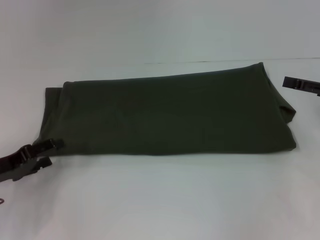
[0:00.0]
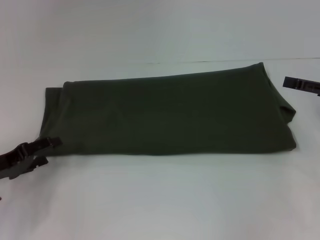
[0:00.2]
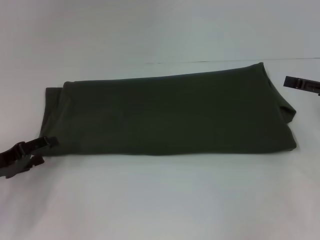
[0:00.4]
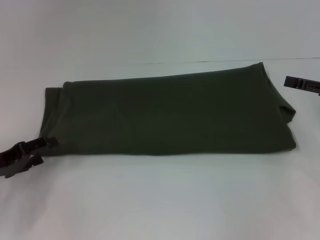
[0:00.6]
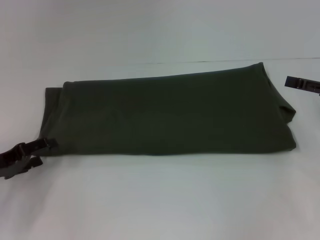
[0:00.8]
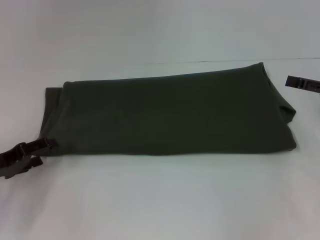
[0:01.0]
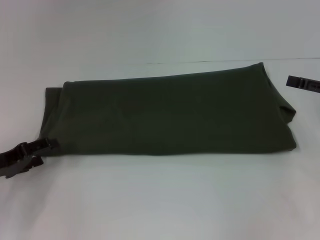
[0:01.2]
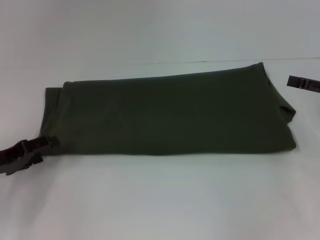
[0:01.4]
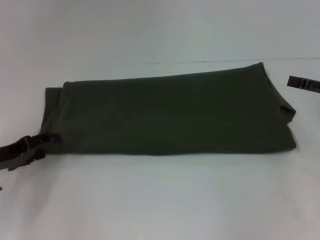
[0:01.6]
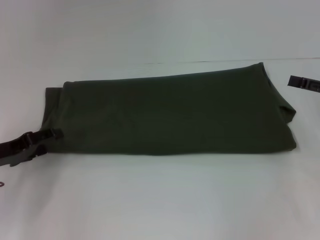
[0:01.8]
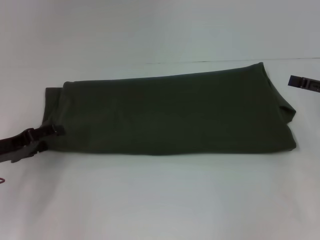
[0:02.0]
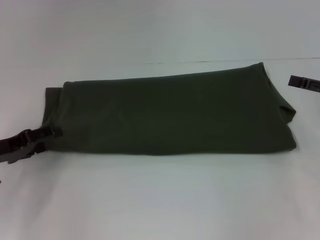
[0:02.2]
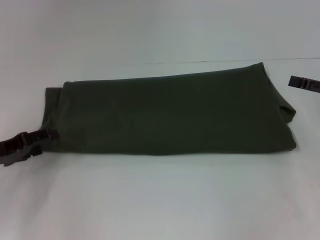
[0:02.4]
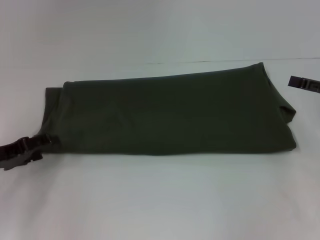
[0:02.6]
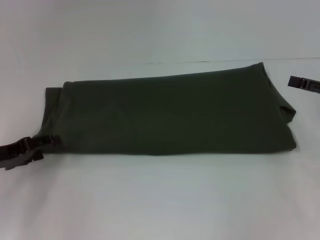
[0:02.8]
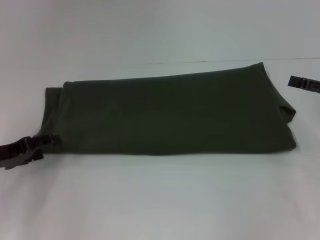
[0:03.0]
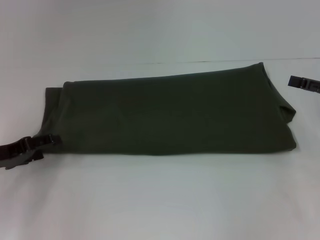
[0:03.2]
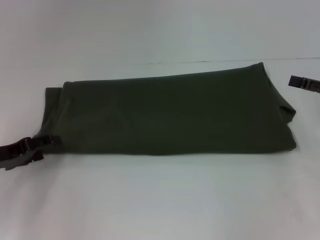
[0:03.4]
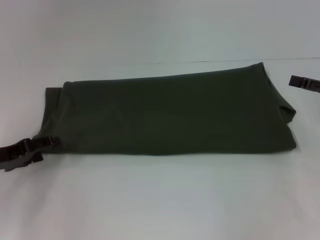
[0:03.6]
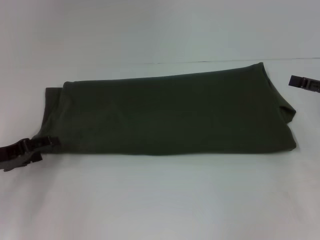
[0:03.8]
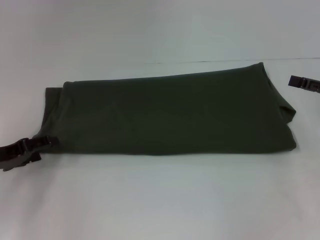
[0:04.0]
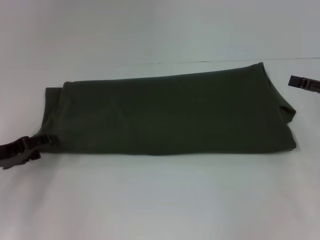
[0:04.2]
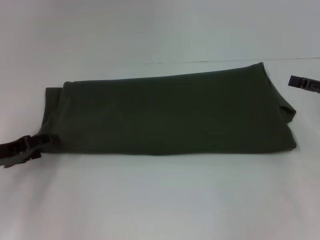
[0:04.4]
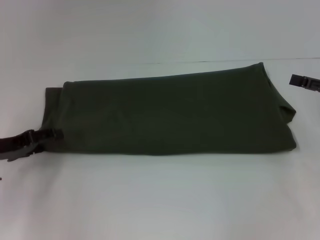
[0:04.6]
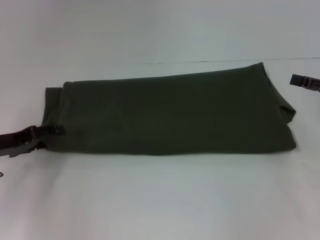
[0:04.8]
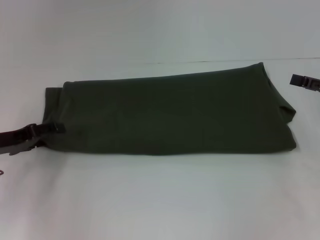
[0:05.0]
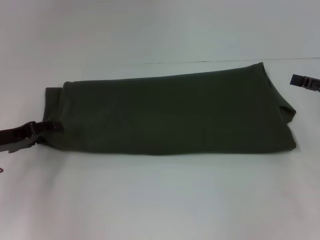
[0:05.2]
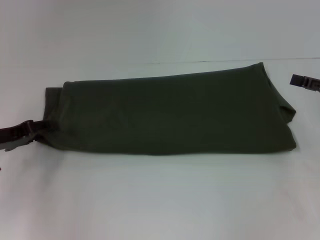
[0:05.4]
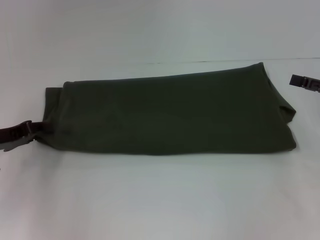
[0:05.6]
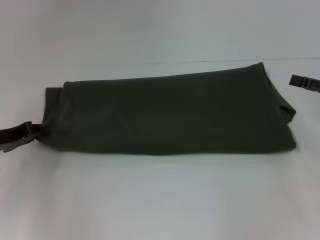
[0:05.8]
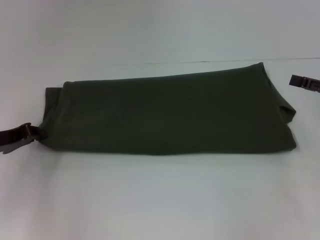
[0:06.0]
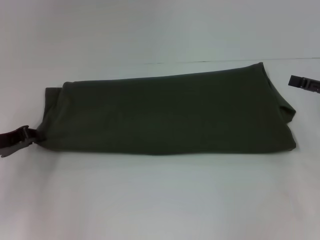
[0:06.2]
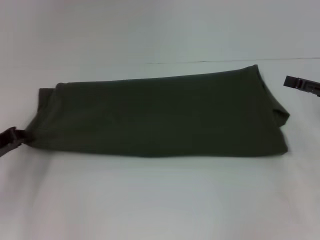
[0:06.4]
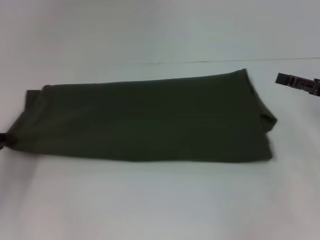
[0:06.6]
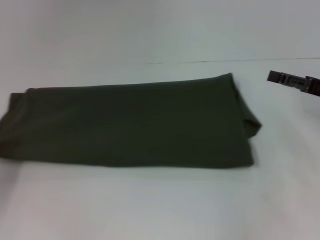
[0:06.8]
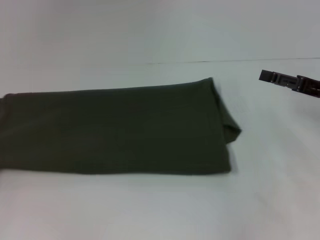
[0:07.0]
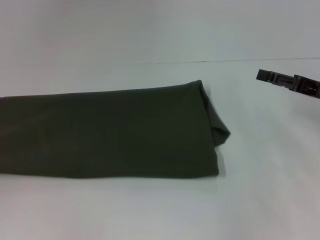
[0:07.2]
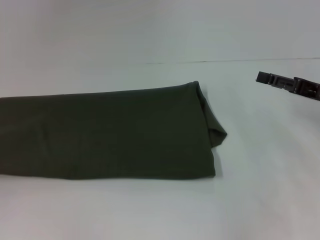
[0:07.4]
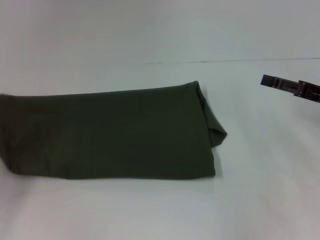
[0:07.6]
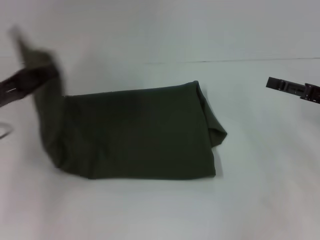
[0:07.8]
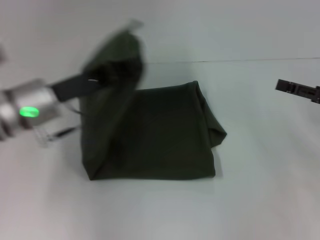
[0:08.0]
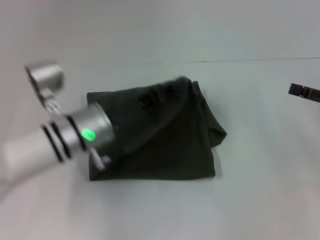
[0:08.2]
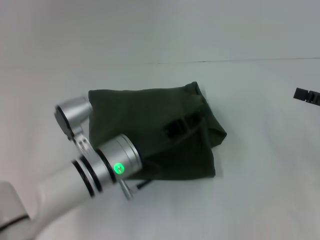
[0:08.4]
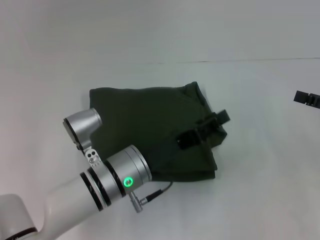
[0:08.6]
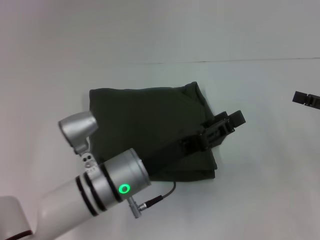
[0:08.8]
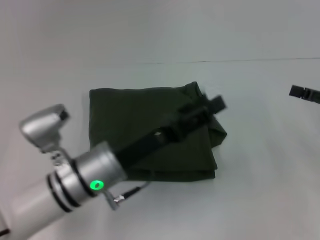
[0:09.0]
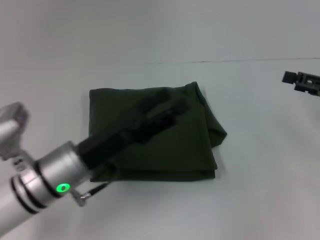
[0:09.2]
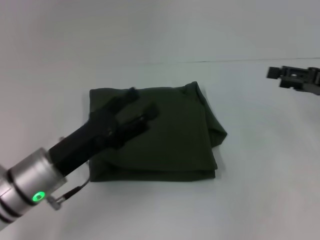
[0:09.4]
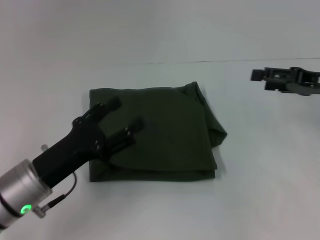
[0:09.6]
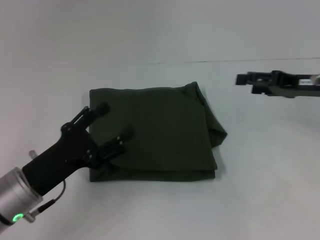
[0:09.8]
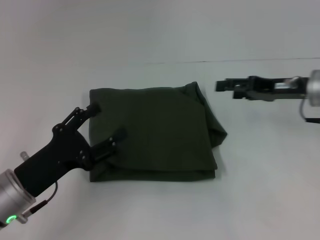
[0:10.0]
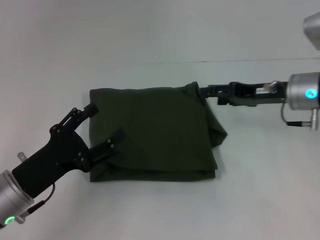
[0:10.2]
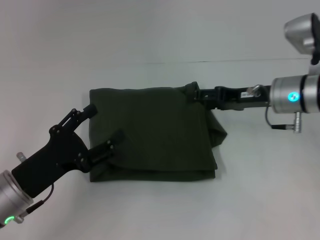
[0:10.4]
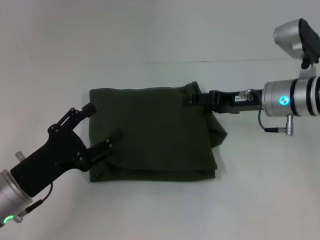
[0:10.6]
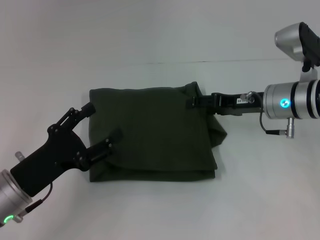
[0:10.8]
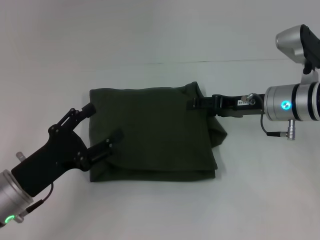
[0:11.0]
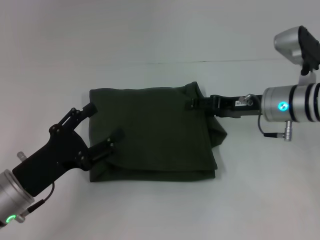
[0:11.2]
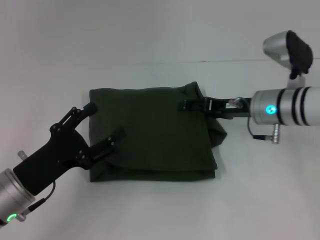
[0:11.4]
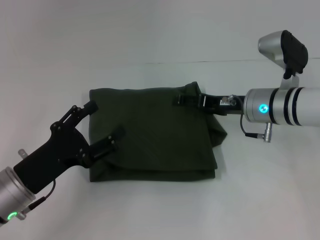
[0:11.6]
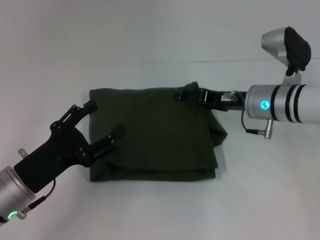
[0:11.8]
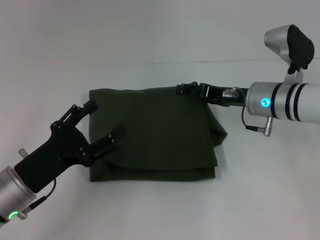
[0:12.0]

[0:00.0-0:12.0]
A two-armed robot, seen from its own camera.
Step, 0:00.0 to 0:08.6: Fold the clothes with your left hand.
0:00.0 to 0:01.6: The grippers move only a little.
0:03.0 to 0:04.4: The two grippers keep their place.
0:04.4 to 0:06.0: The left gripper closes up.
0:06.0 to 0:07.6: The left gripper shifts some 10 cm to the left and backward.
0:07.6 to 0:09.0: The left gripper heads to the right, covering approximately 25 cm, and opens up.
0:09.0 to 0:10.4: The right gripper travels to the left and forward by approximately 15 cm; the left gripper goes approximately 10 cm to the left, and opens its fingers.
0:10.4 to 0:12.0: The grippers move only a little.

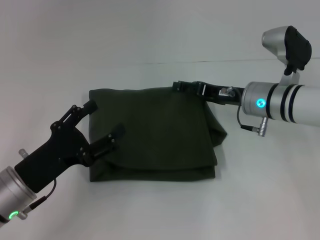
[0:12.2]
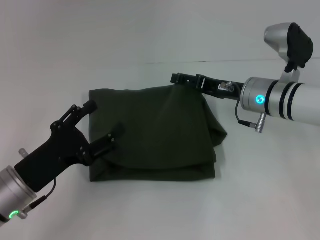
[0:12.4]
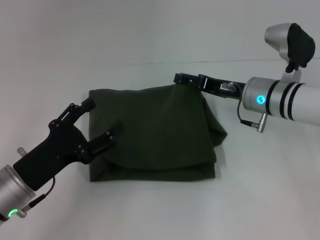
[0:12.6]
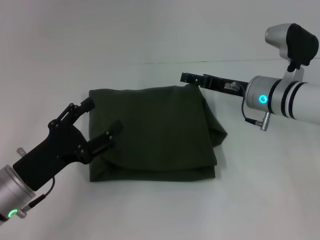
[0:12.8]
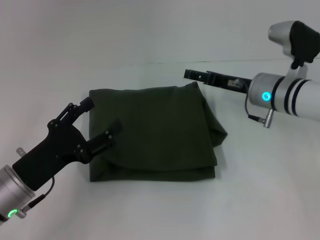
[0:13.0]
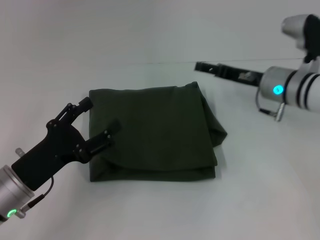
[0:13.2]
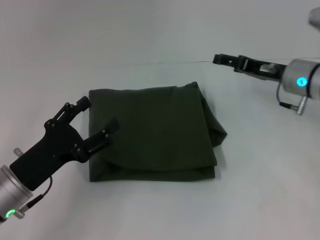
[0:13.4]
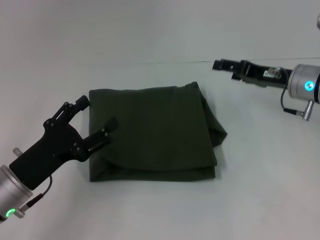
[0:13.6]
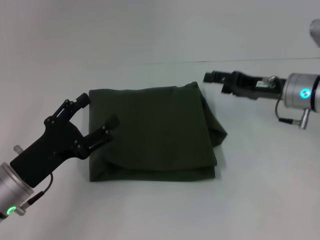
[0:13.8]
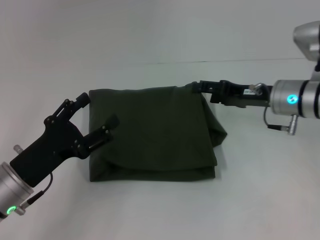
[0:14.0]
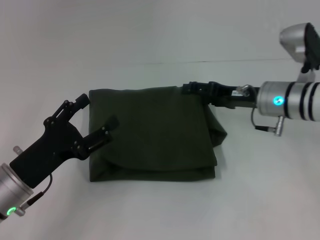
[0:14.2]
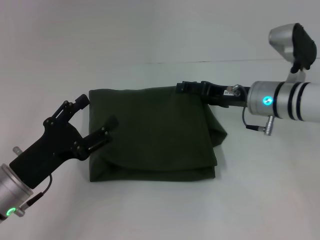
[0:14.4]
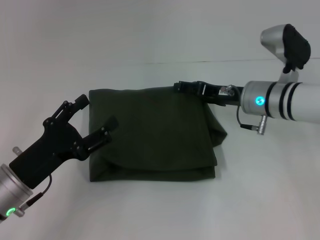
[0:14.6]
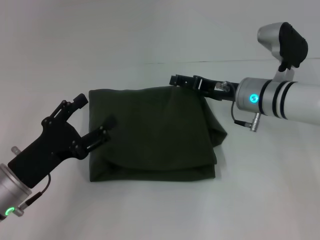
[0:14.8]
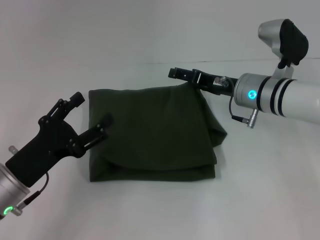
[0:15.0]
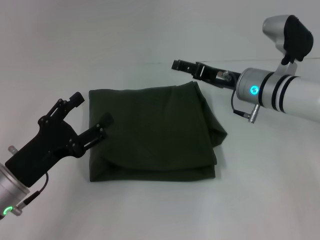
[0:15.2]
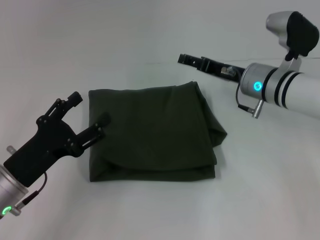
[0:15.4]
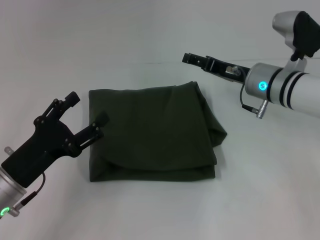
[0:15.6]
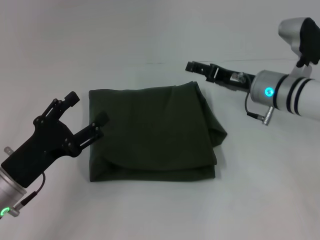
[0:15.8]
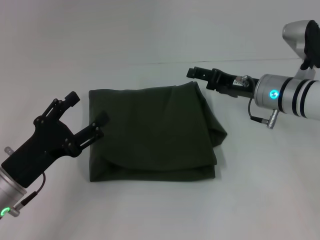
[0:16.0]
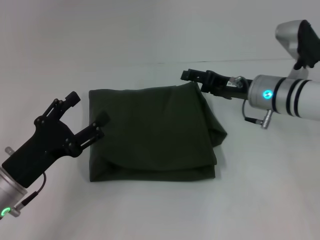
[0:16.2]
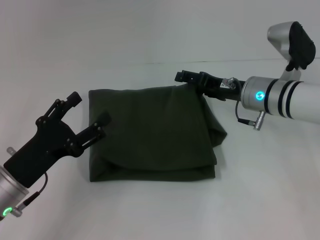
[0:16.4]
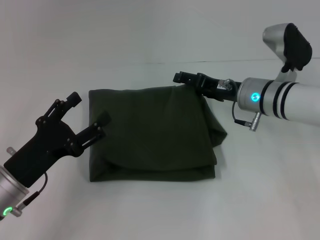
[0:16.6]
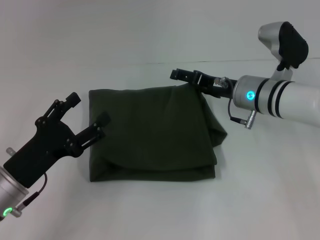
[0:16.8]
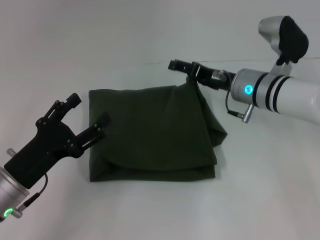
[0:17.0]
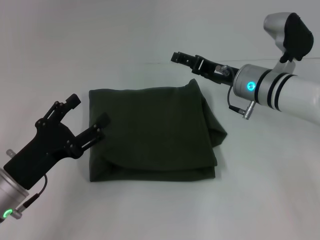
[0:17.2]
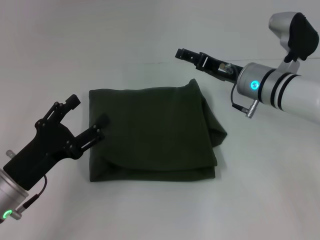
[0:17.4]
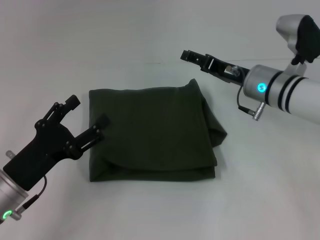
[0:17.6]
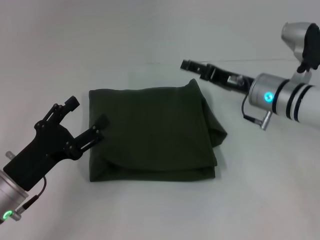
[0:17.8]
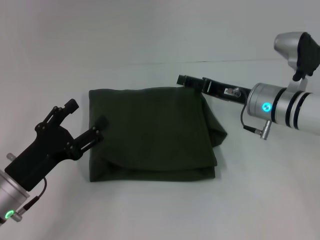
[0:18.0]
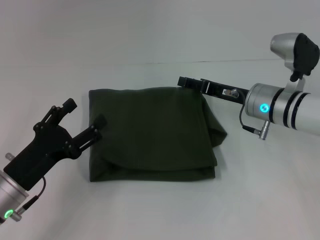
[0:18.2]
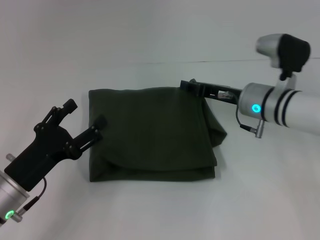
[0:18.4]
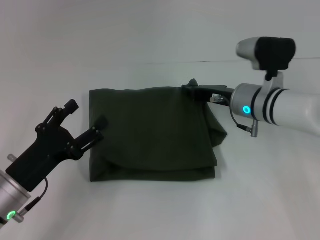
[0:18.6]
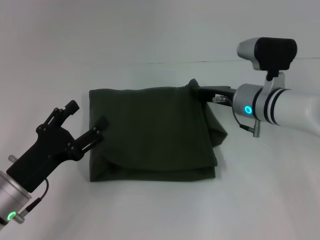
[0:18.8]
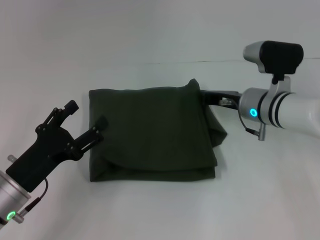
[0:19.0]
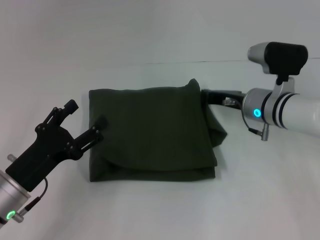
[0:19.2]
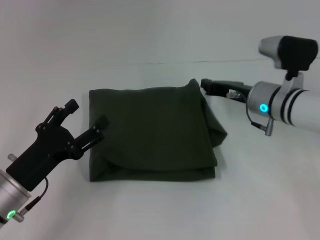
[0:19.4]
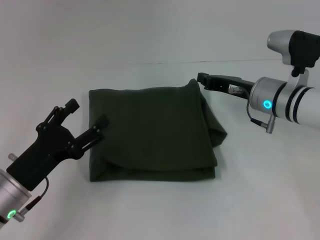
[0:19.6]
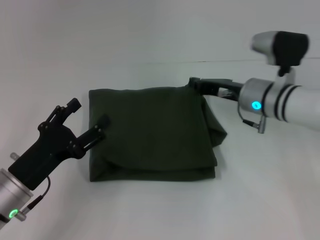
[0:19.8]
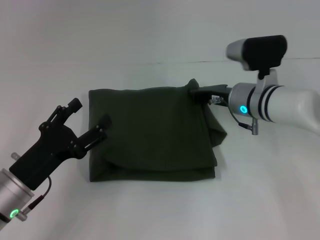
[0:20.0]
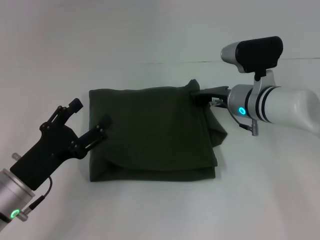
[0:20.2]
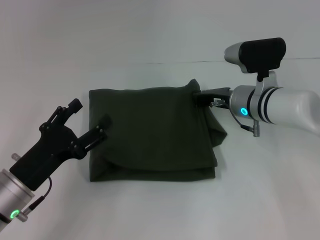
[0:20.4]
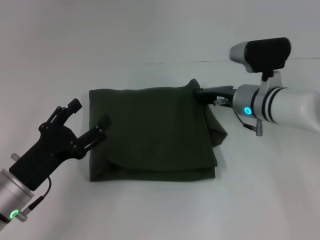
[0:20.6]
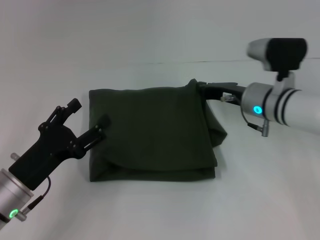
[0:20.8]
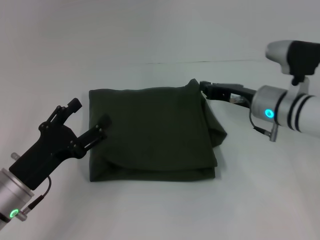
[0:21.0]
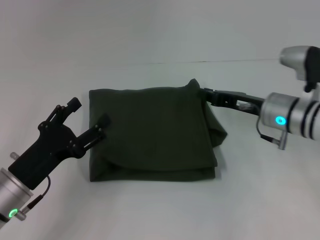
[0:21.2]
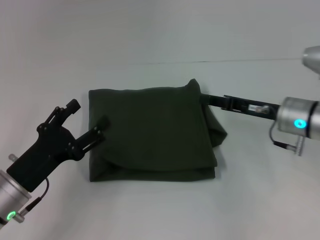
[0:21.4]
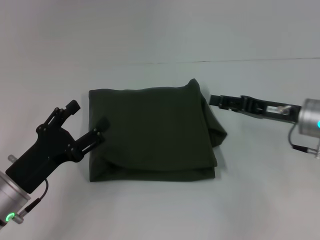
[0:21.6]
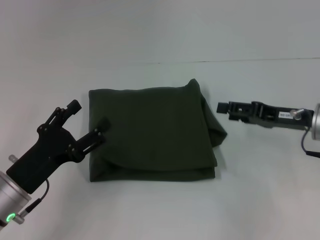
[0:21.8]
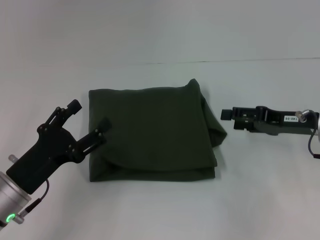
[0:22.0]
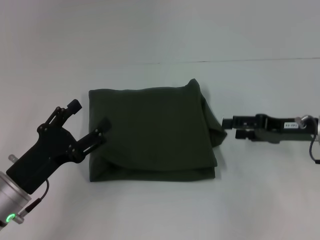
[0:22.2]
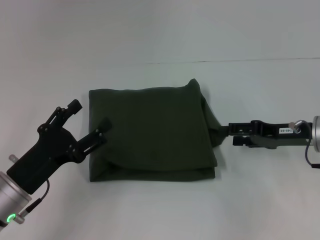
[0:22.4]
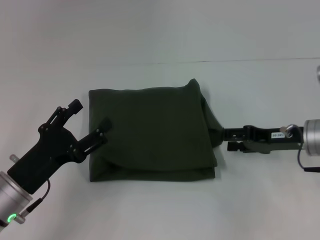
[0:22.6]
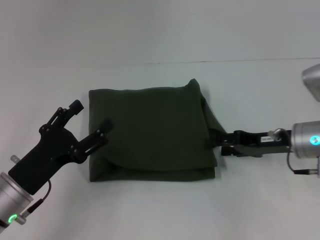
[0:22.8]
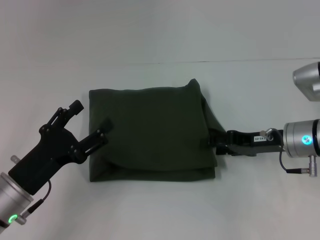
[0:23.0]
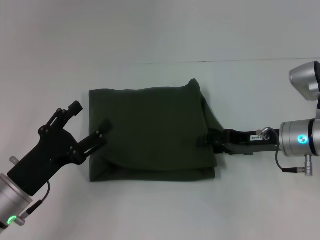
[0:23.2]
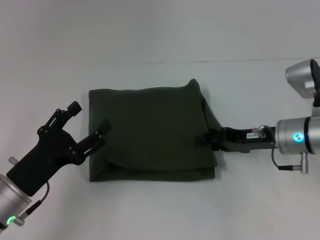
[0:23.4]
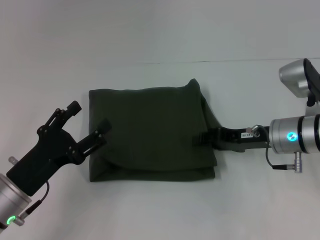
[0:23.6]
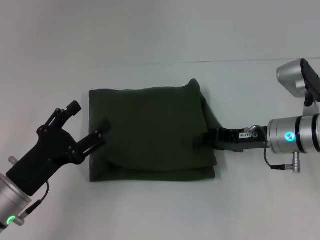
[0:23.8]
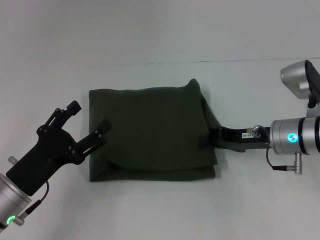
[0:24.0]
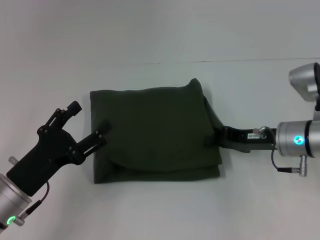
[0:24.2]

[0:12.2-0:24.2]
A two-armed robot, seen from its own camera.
0:12.2 to 0:13.8: The right gripper shifts about 5 cm to the right.
0:13.8 to 0:15.2: The right gripper heads to the left, covering approximately 5 cm.
0:15.2 to 0:18.2: The grippers stay close to where they were, moving slightly.
0:18.2 to 0:19.8: The right gripper closes up.
0:19.8 to 0:21.2: There are only small adjustments of the grippers.
0:21.2 to 0:22.6: The right gripper goes approximately 5 cm to the right, and opens up.
0:22.6 to 0:24.2: The right gripper closes its fingers.
